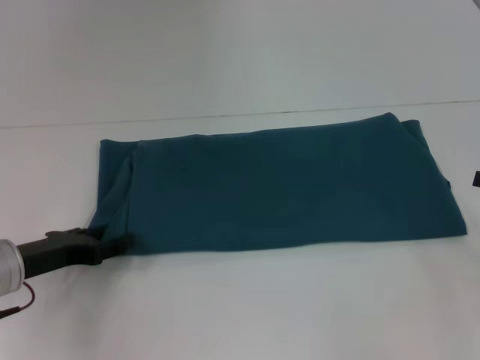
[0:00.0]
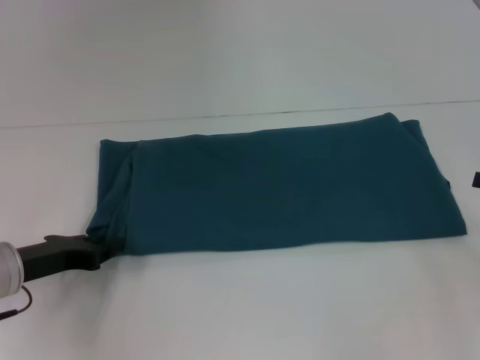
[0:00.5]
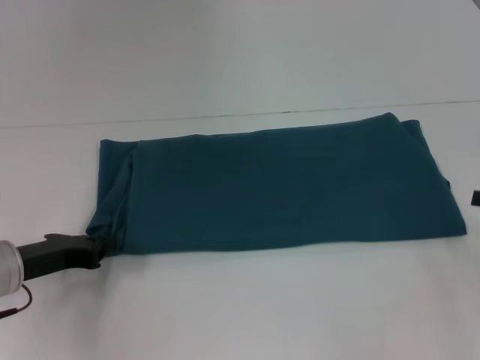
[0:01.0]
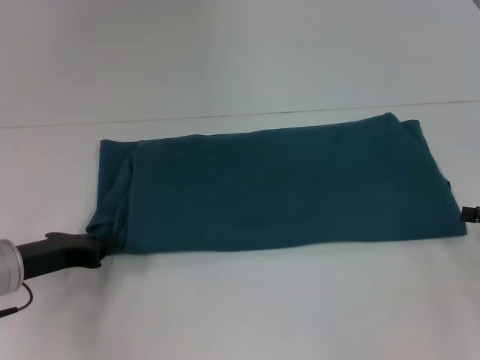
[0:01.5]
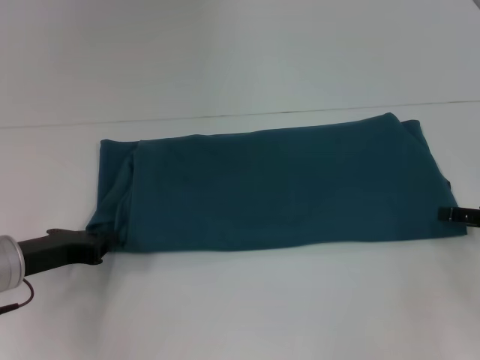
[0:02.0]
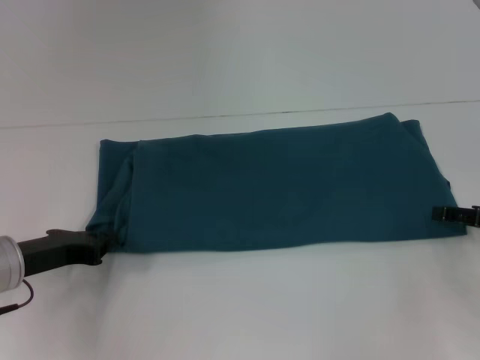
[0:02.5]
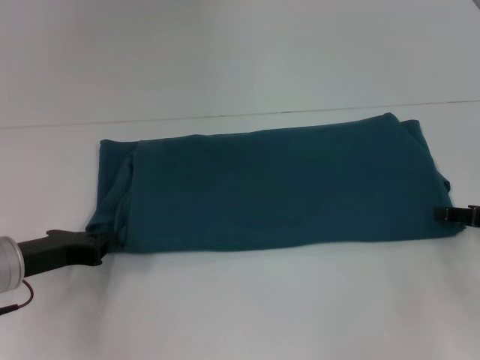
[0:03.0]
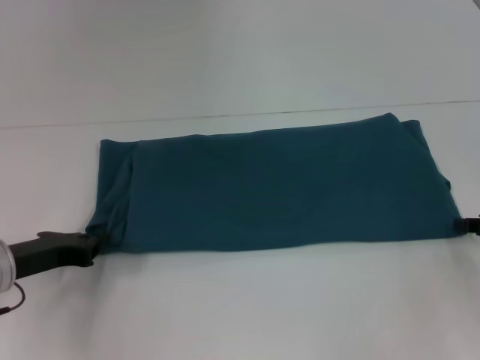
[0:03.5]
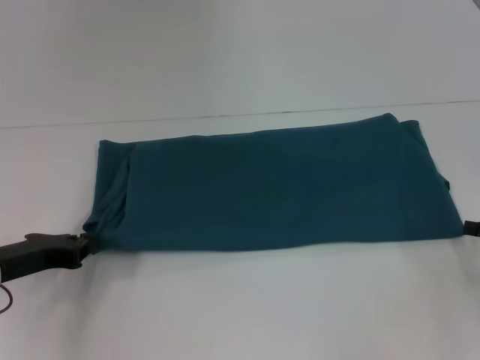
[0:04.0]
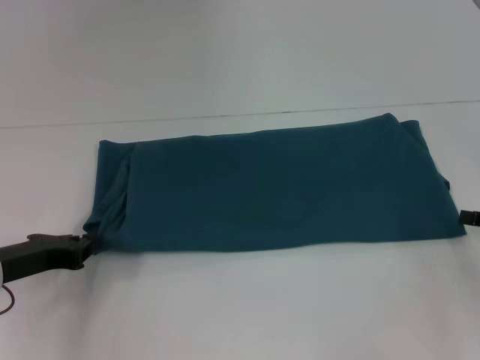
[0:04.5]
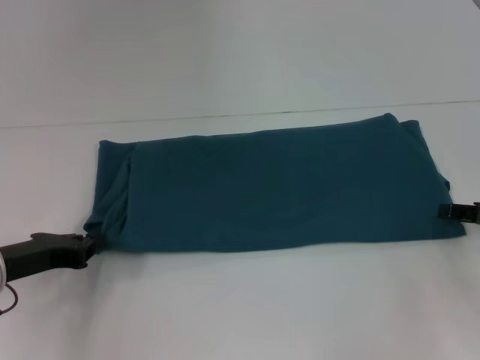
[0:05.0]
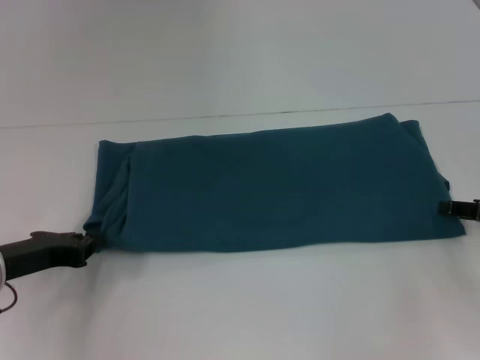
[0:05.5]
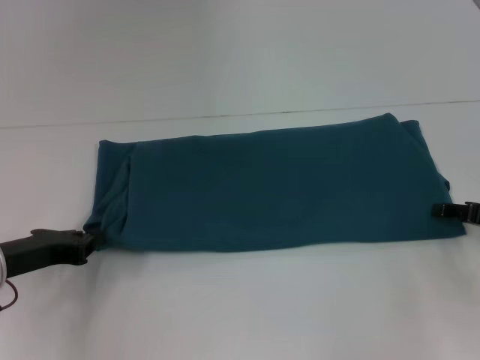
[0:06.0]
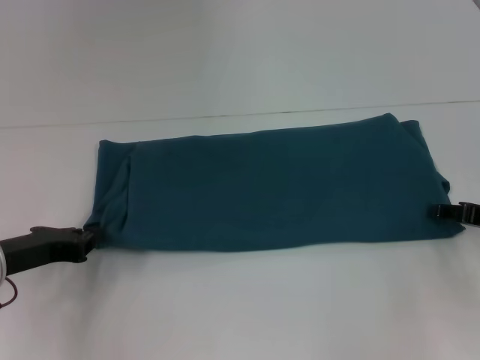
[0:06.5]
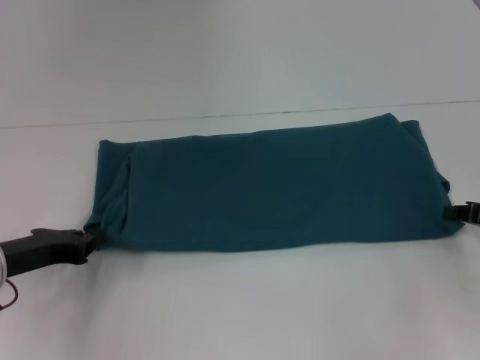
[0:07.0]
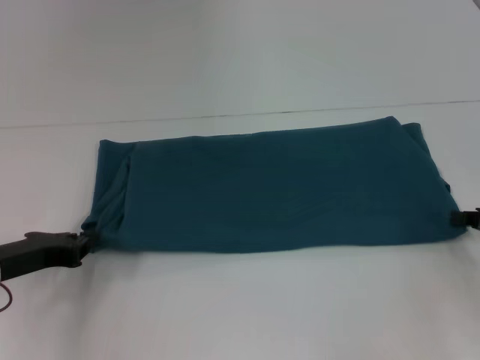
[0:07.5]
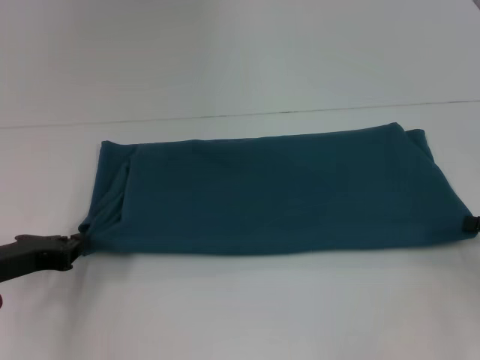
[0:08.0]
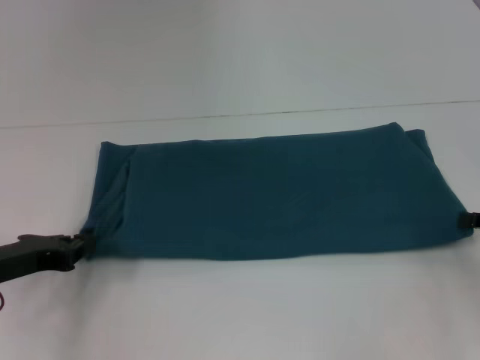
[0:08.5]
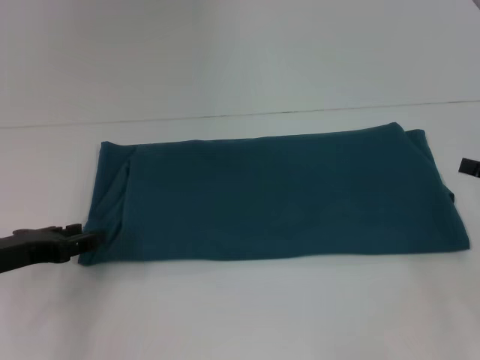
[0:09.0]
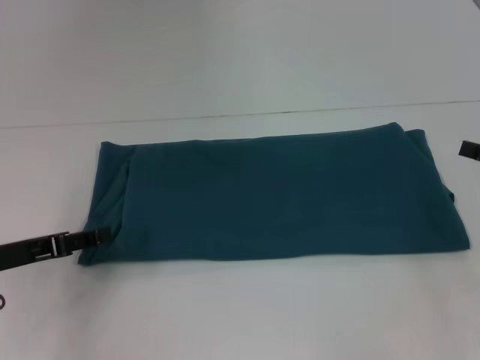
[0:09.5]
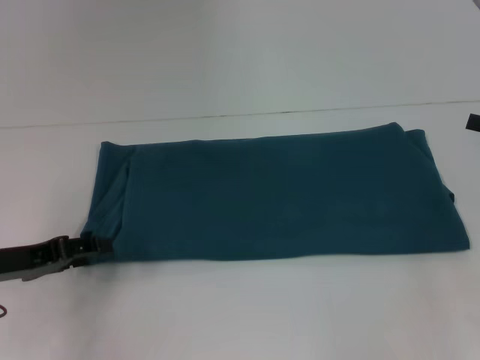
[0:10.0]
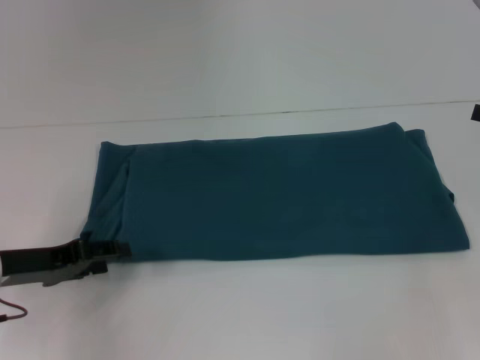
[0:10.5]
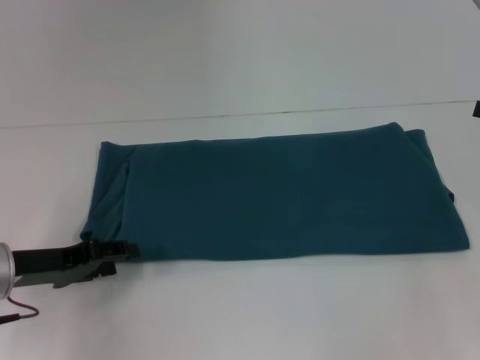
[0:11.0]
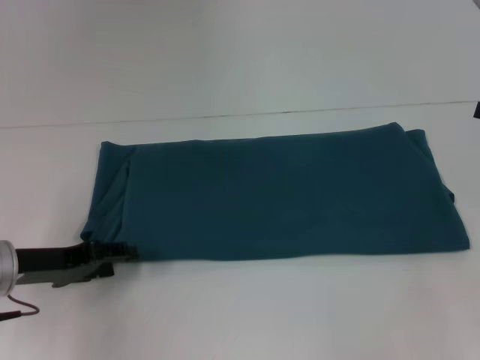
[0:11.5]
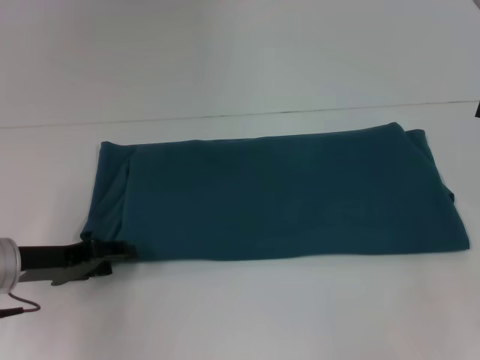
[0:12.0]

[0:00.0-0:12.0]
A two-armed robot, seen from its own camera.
0:00.0 to 0:02.0: The left gripper closes.
0:06.0 to 0:08.0: The right gripper closes its fingers.
0:08.0 to 0:10.0: The right gripper heads upward, covering some 10 cm, and opens its fingers; the left gripper opens up.
0:10.0 to 0:12.0: The grippers stay close to where they were, moving slightly.

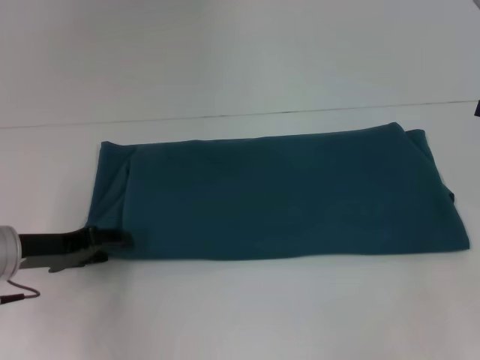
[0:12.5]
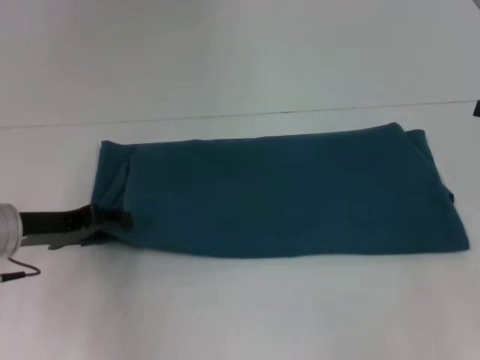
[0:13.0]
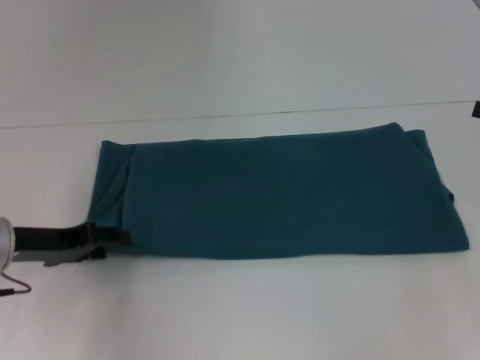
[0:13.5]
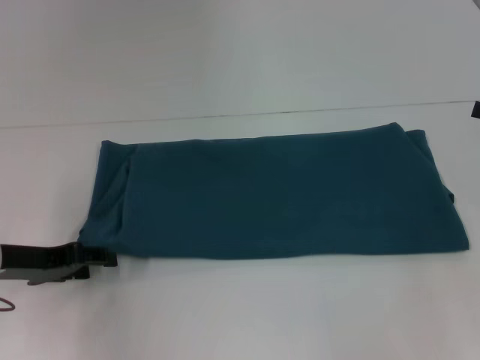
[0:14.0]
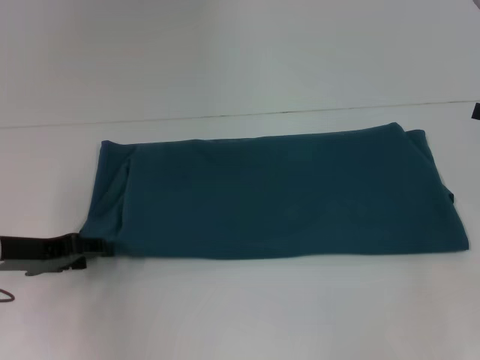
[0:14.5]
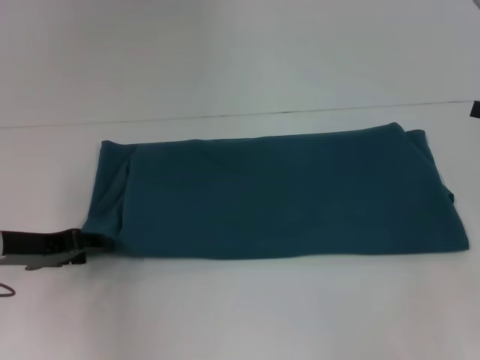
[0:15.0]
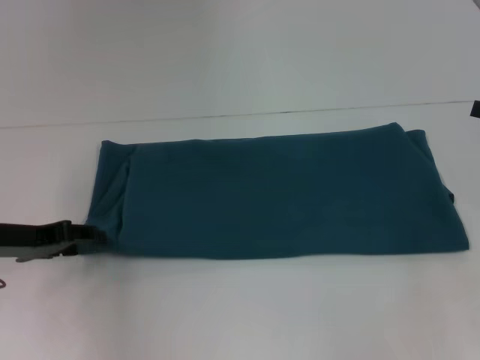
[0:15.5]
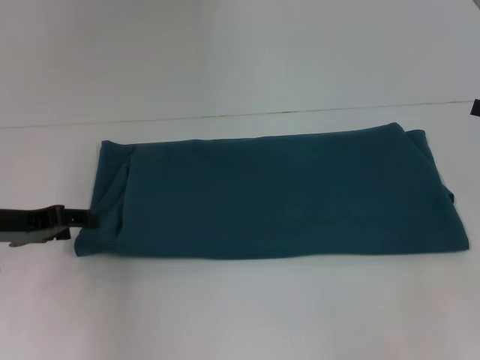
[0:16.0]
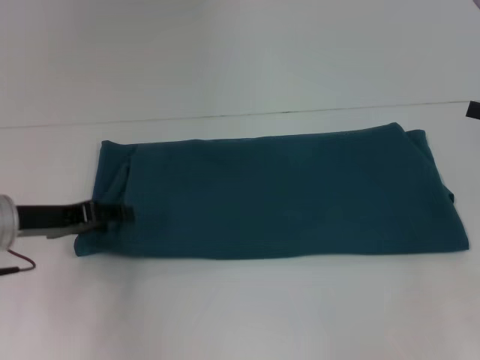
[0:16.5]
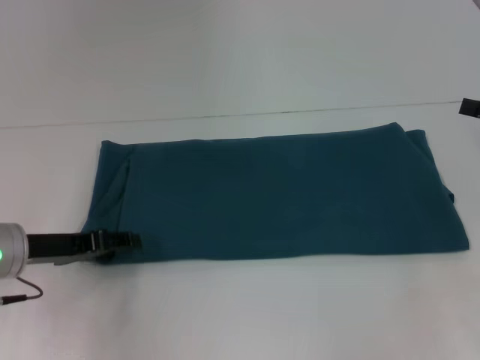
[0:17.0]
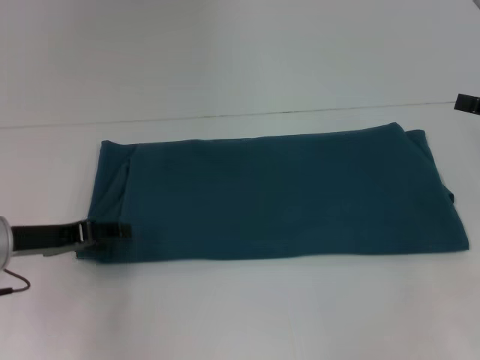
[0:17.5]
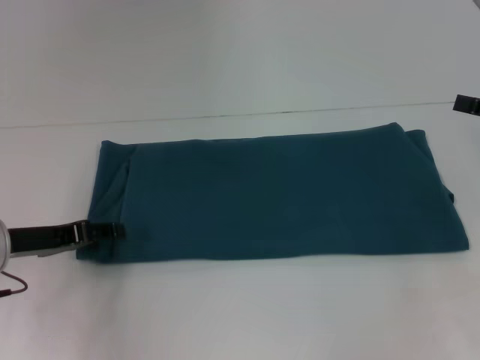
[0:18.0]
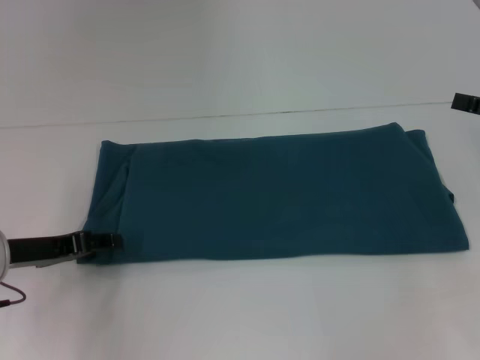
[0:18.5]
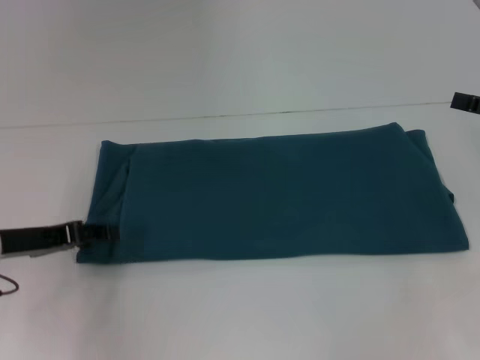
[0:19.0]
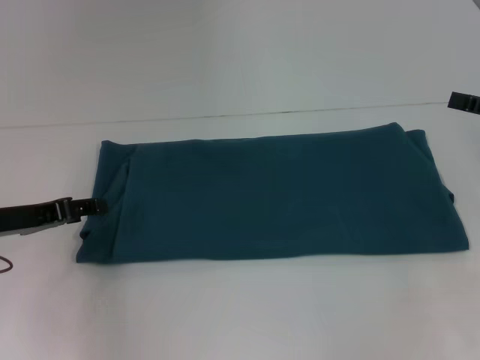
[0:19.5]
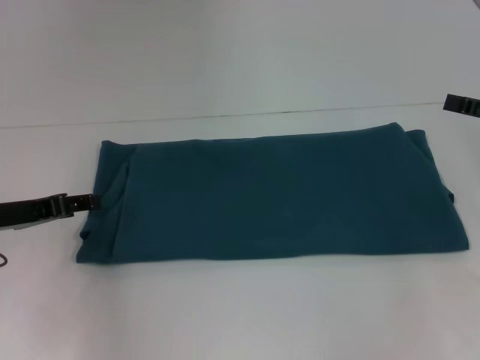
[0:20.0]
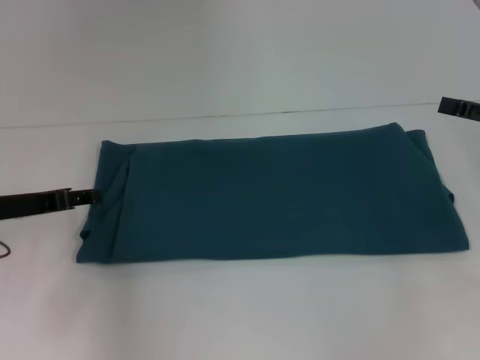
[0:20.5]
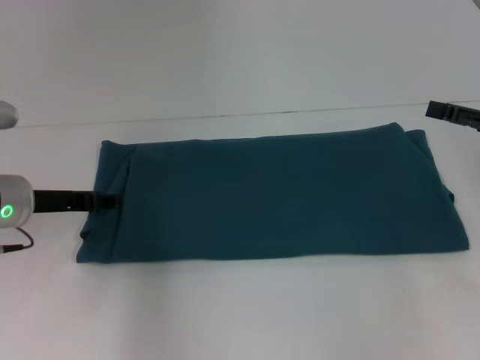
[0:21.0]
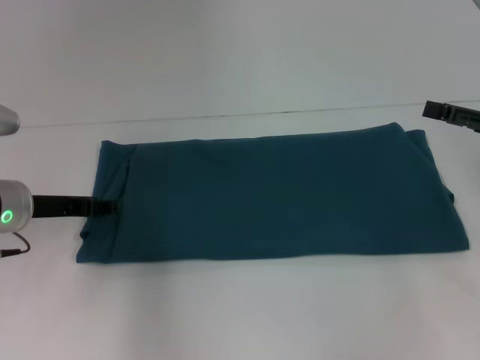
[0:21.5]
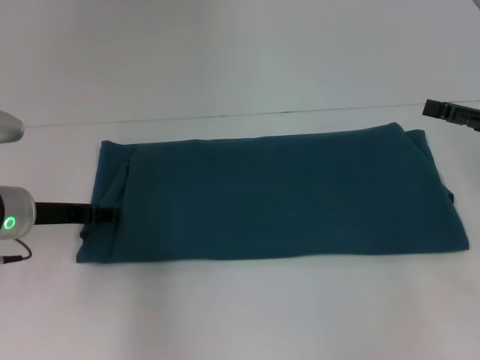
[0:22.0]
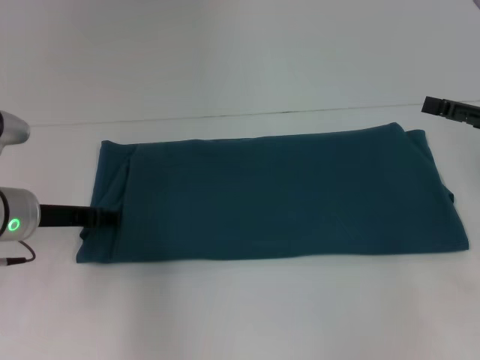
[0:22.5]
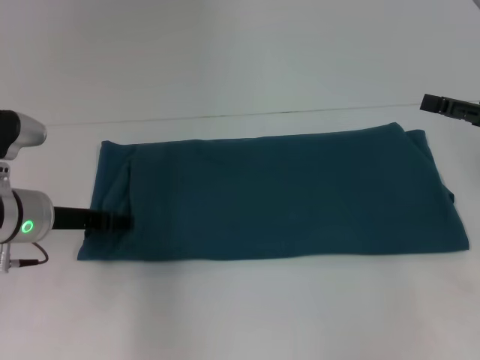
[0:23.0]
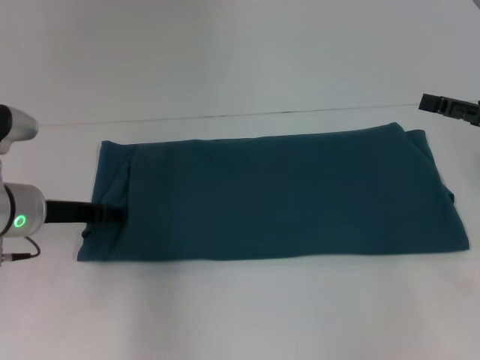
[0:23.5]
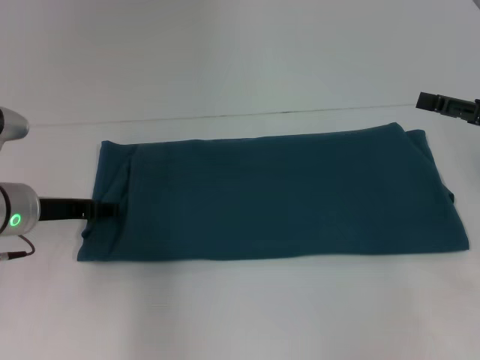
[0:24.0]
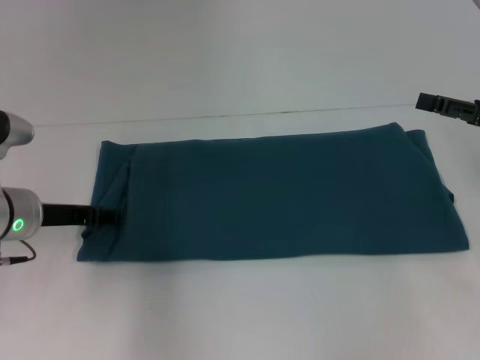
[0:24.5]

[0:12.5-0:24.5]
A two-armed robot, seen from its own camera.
0:12.5 to 0:18.5: The grippers make only small movements.
0:18.5 to 0:20.5: There are only small adjustments of the grippers.
0:20.5 to 0:24.5: There are only small adjustments of the grippers.

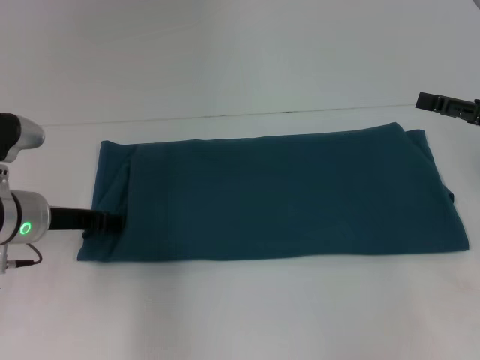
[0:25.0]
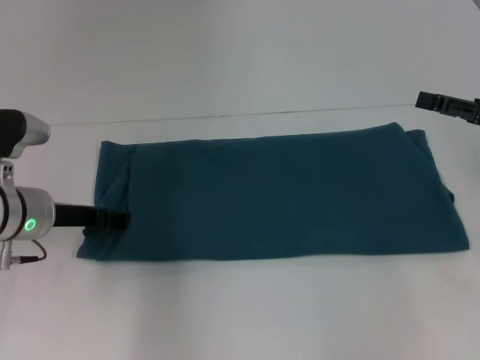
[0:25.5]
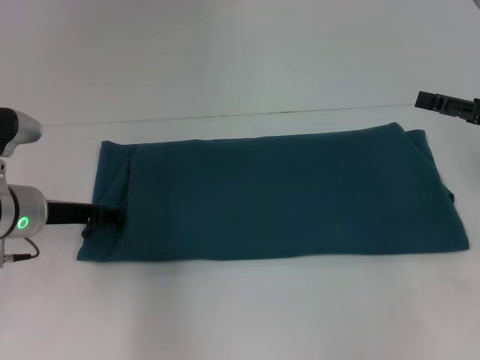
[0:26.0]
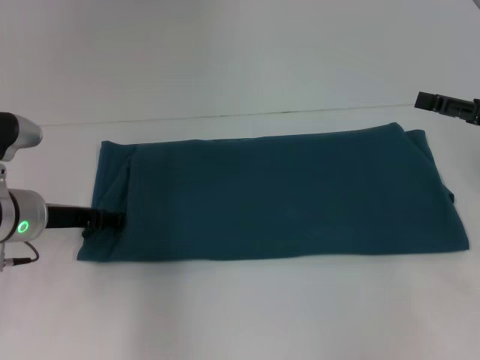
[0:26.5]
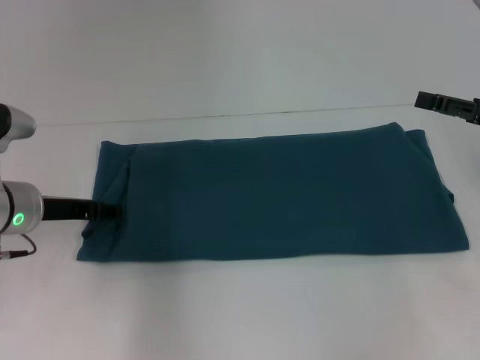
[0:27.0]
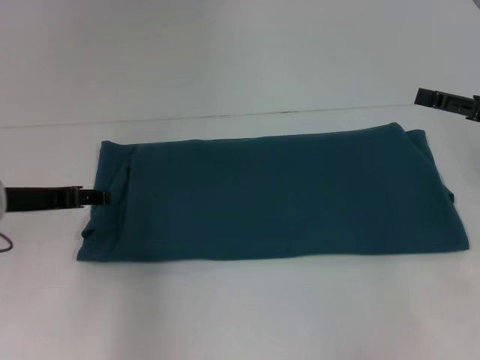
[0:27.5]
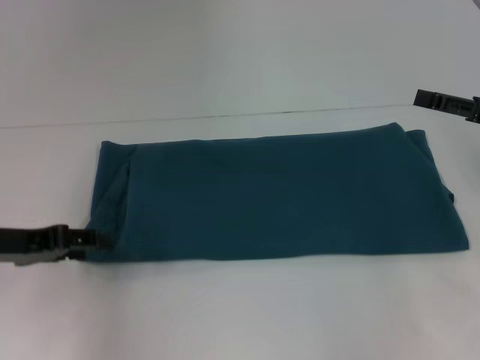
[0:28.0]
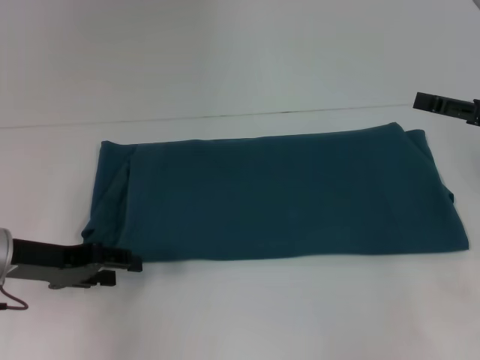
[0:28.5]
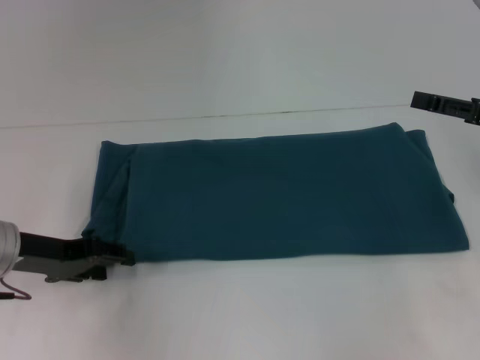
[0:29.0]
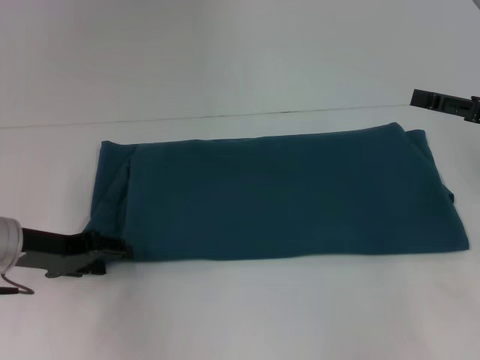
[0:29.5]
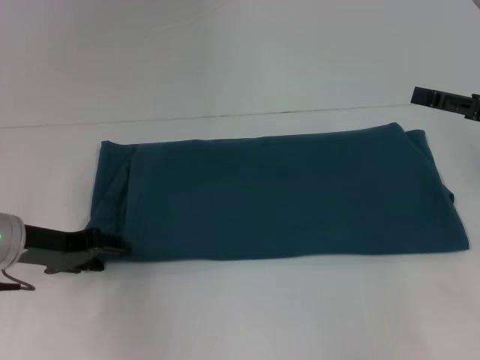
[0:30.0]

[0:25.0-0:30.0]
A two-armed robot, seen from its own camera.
0:25.0 to 0:27.5: The left gripper ends up roughly 5 cm from where it was.
